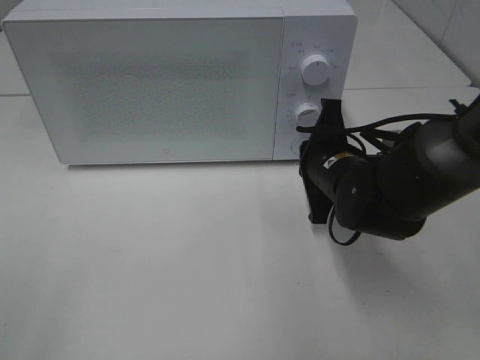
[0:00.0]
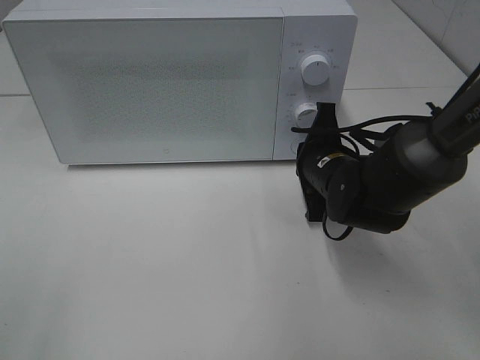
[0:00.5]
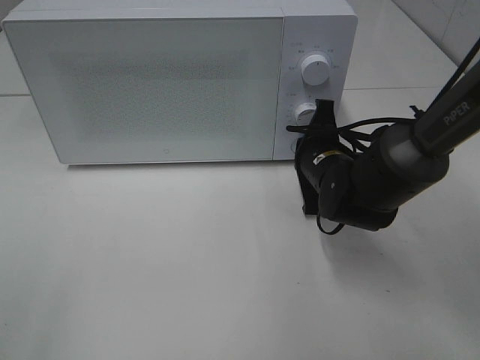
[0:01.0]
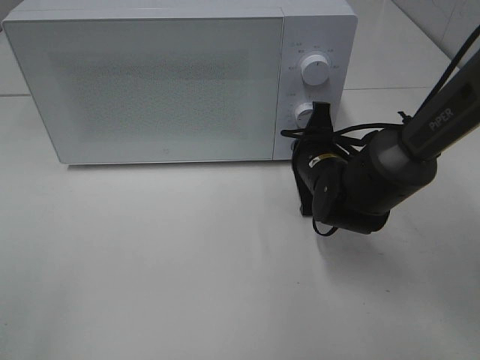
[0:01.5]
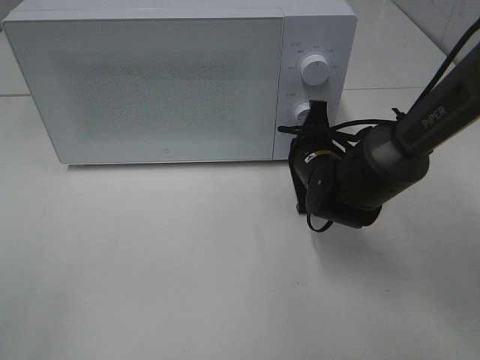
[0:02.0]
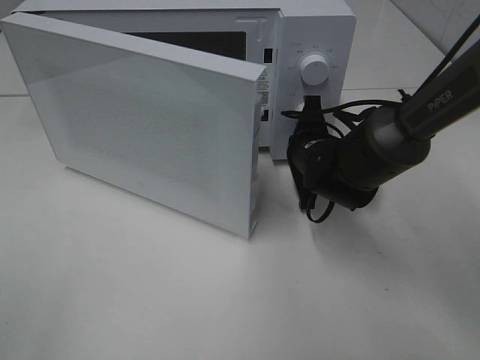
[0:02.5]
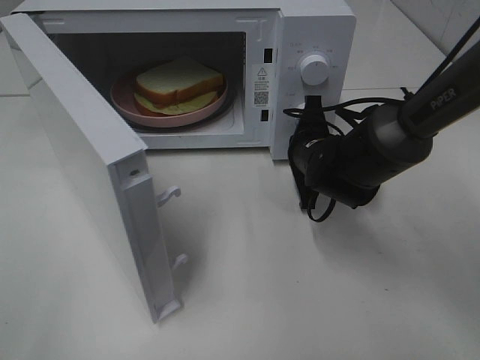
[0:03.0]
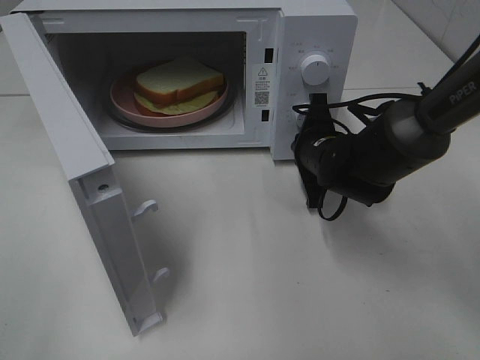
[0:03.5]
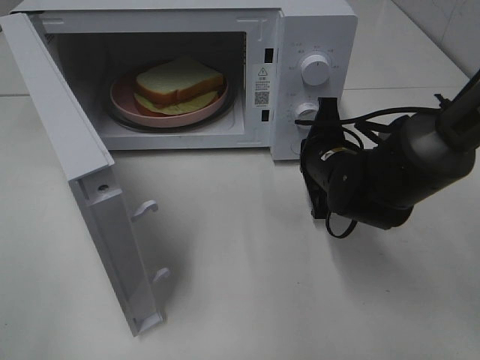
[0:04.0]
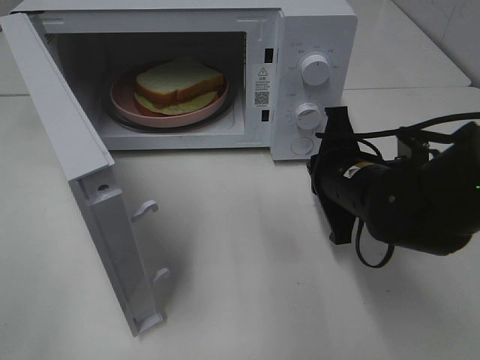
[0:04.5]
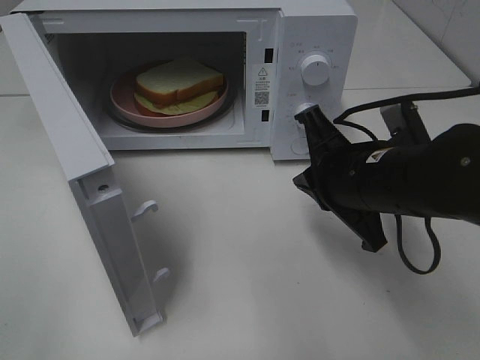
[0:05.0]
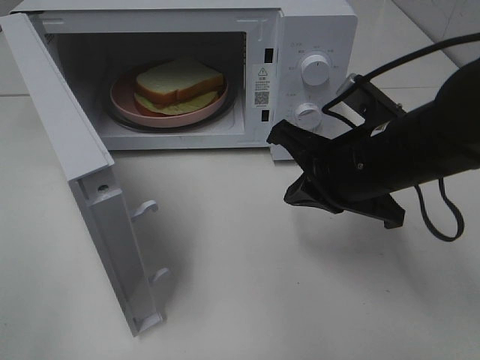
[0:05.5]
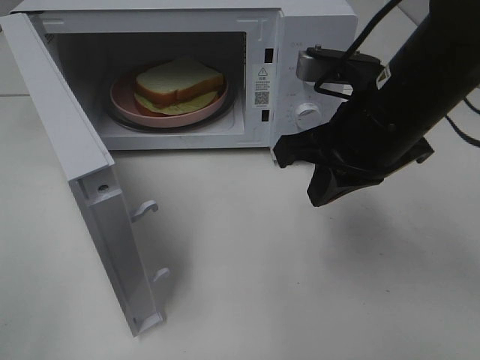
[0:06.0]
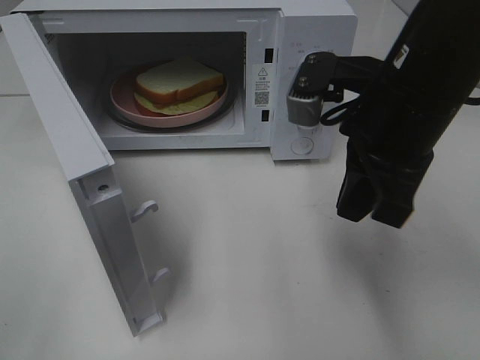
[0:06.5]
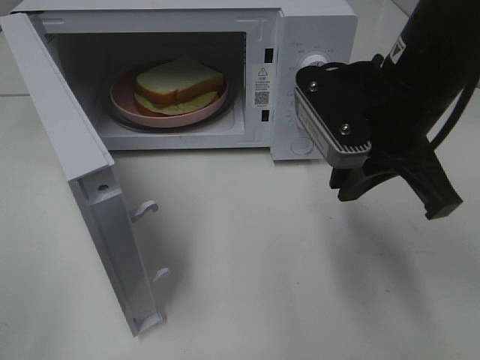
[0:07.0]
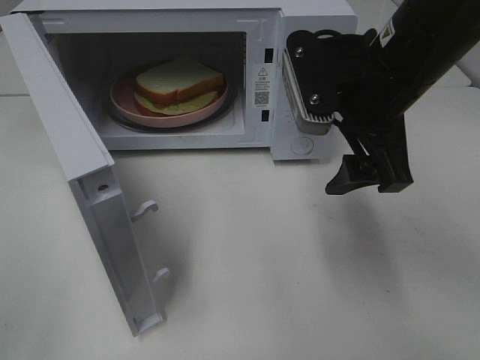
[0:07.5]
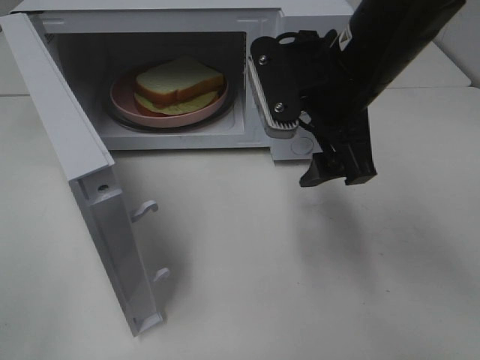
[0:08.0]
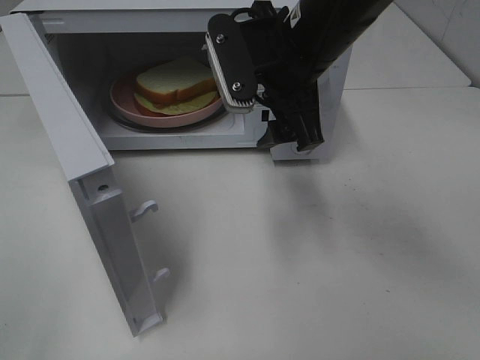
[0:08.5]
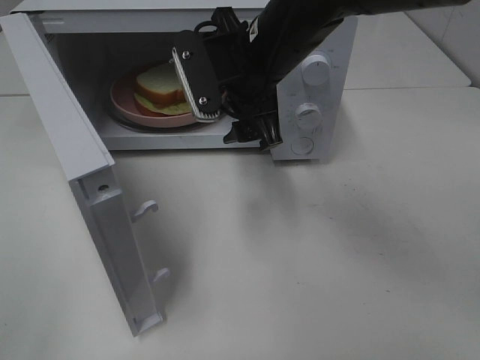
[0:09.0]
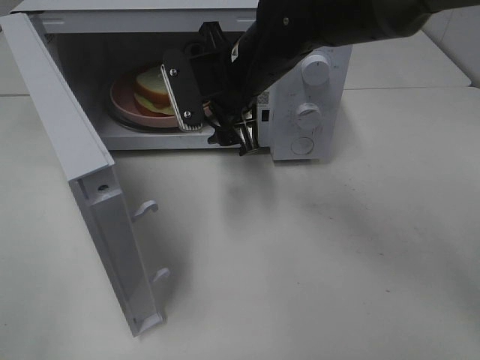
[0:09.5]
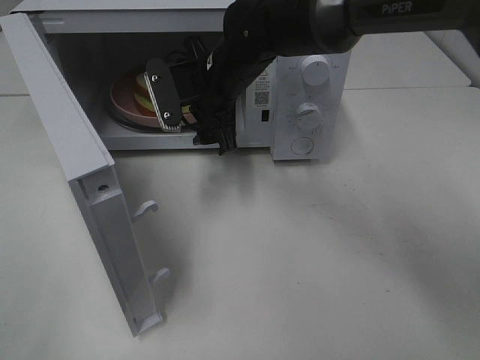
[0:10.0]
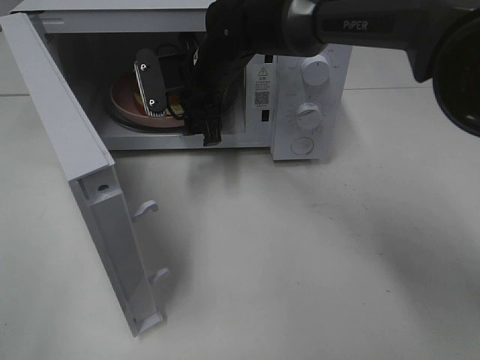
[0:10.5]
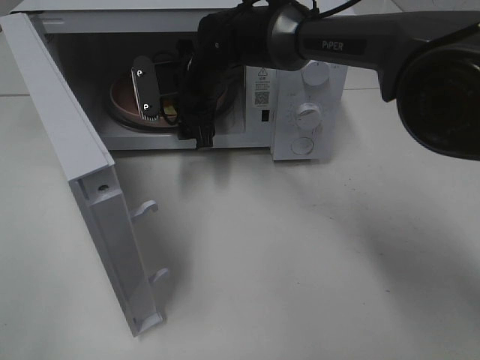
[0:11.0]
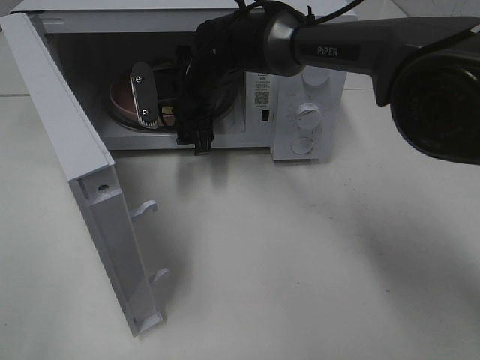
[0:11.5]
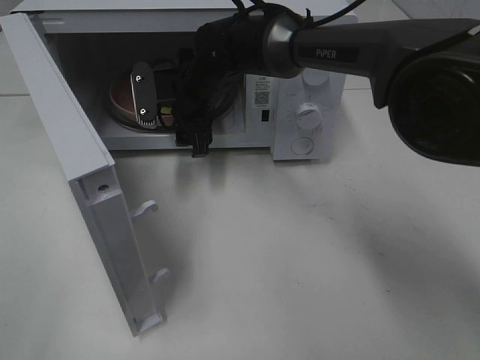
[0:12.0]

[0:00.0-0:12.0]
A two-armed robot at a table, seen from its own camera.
Task of the whole recording: Heat Sandwich.
Step, 0:00.0 to 0:04.0: Right hand: press the switch.
0:00.0 to 0:02.0: The right gripper ends up about 5 cm from where it was.
0:04.0 to 0:06.0: The right gripper is displaced upward and backward by roughly 15 cm.
0:06.0 to 0:08.0: The right gripper opens its fingers.
0:08.0 to 0:10.0: The right gripper heads forward, to the left and downward, covering about 20 cm.
0:10.0 to 0:12.0: The right gripper shifts by approximately 5 cm.

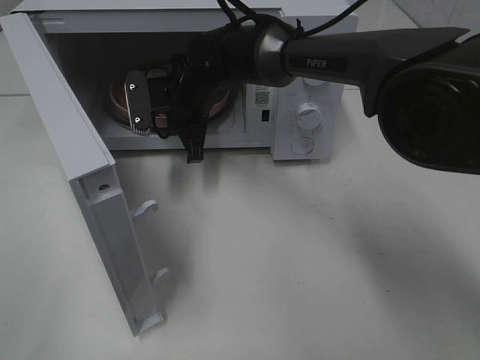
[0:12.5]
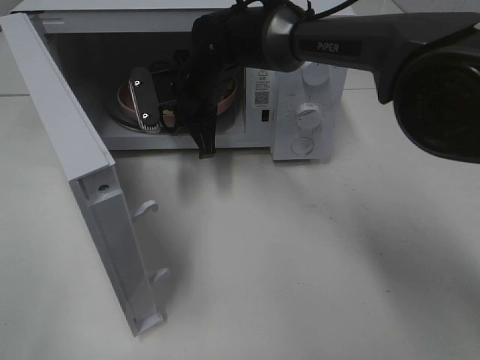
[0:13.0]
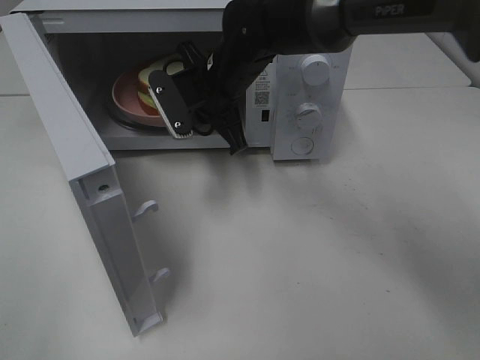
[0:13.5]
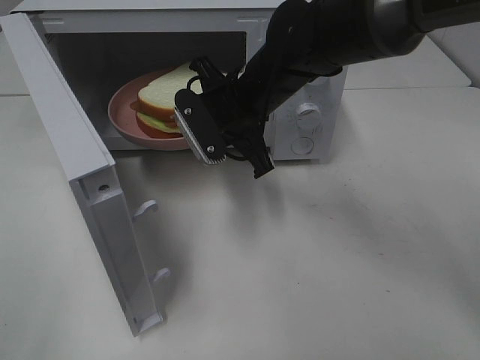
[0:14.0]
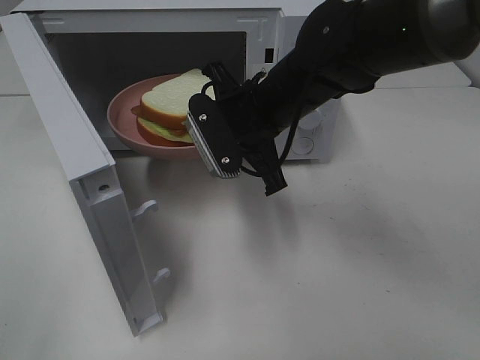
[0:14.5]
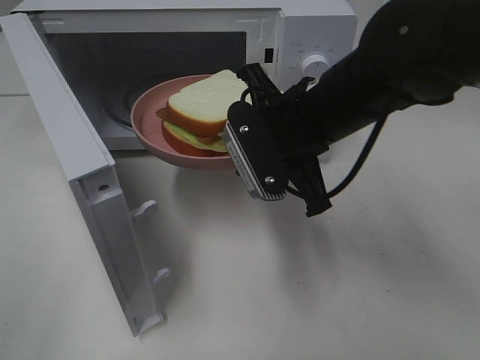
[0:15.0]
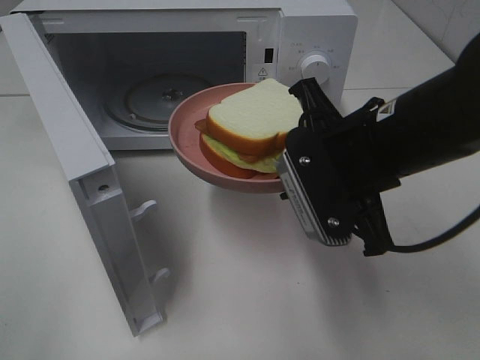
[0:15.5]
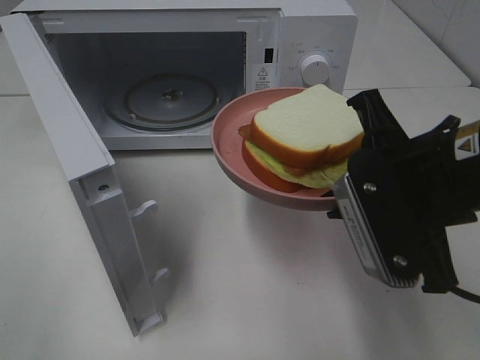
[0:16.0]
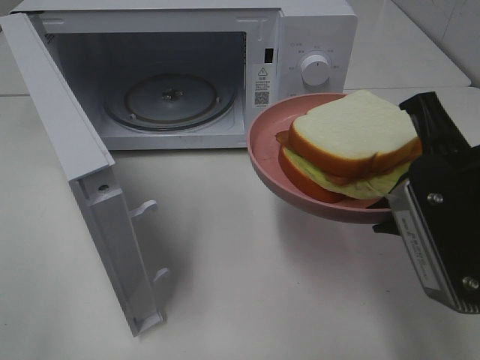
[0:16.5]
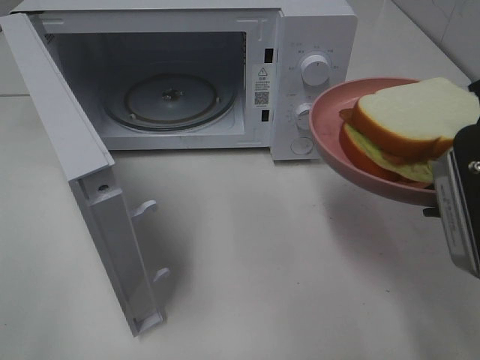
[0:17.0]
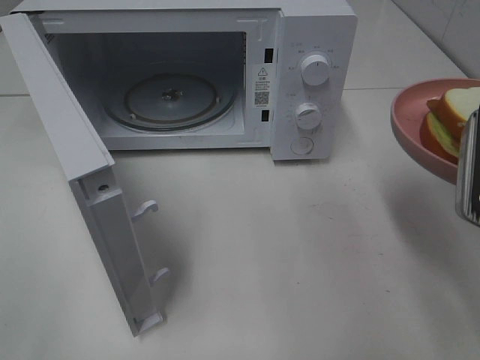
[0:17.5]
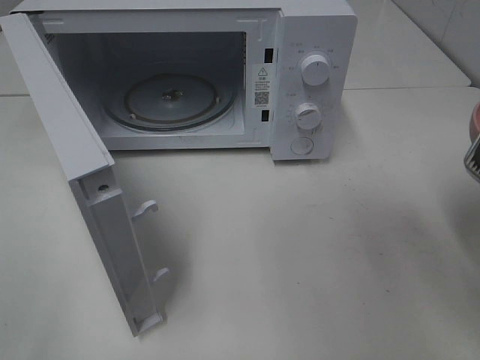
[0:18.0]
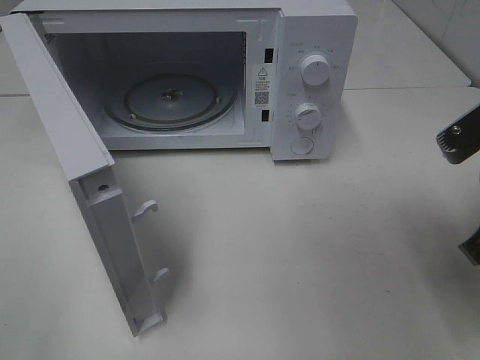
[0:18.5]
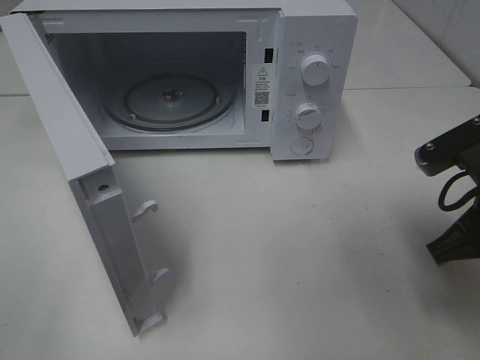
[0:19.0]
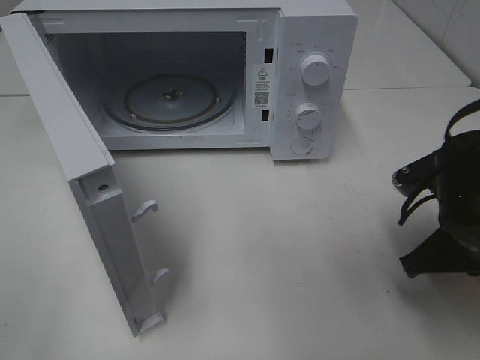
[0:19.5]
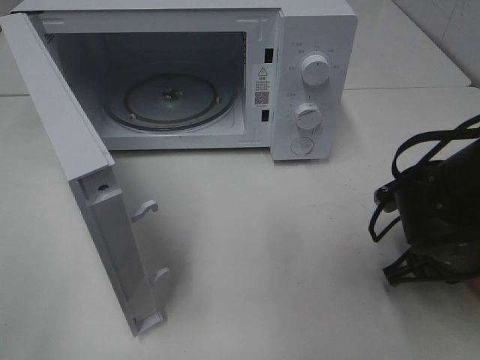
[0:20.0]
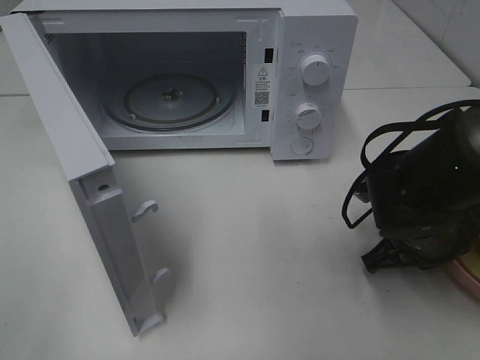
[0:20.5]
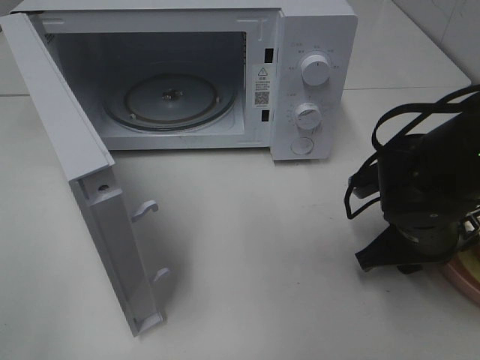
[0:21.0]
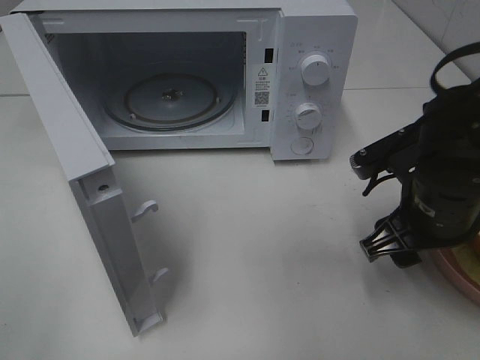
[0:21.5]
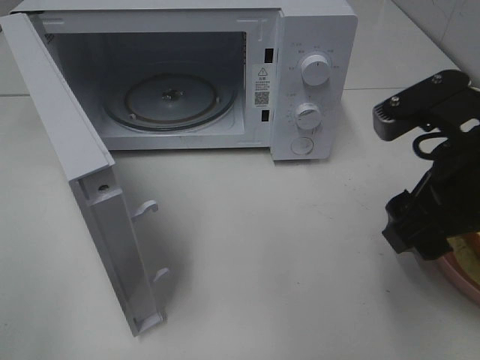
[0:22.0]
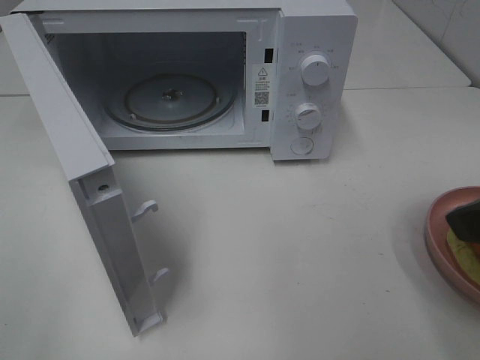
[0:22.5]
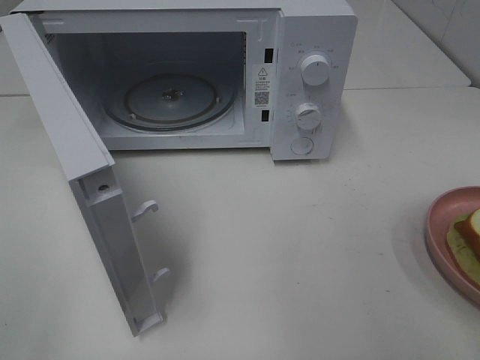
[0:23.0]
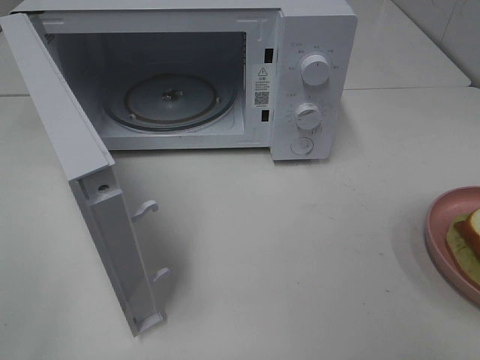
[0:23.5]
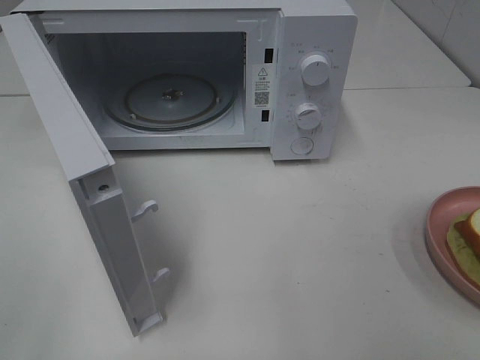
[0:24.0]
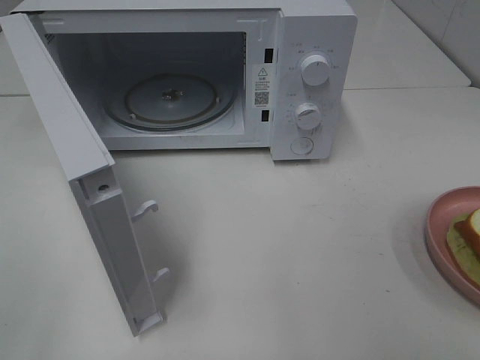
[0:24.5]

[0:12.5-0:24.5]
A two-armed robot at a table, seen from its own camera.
Task of the whole recording: Heat Sandwich.
Step, 0:13.5 to 0:21.5: Right hand: place the plate on the table.
0:12.5 to 0:14.5: The right gripper moves backward, to the right and upward, some 15 cm.
0:14.5 to 0:16.5: The right gripper moves backward and to the right, roughly 20 cm.
0:16.5 to 0:18.5: The right gripper is displaced to the right by about 5 cm.
0:18.5 to 0:20.5: The right gripper is displaced downward and forward by about 15 cm.
0:20.5 to 0:22.5: The right gripper moves upward and backward, about 25 cm, and opens.
0:22.5 to 0:24.5: The right gripper goes some 15 cm backward and to the right.

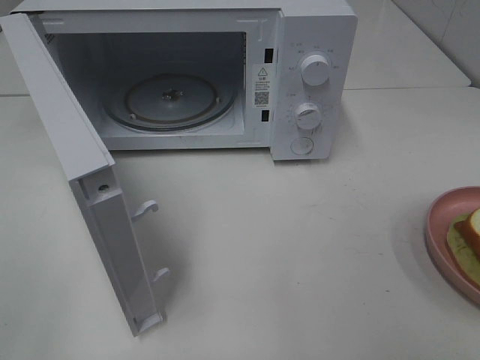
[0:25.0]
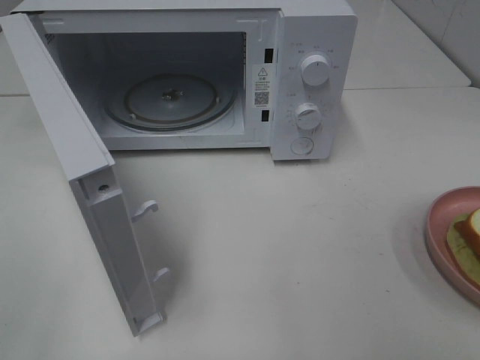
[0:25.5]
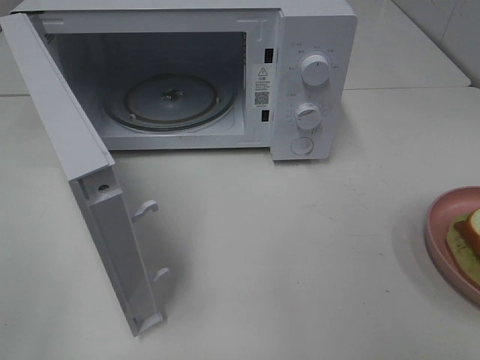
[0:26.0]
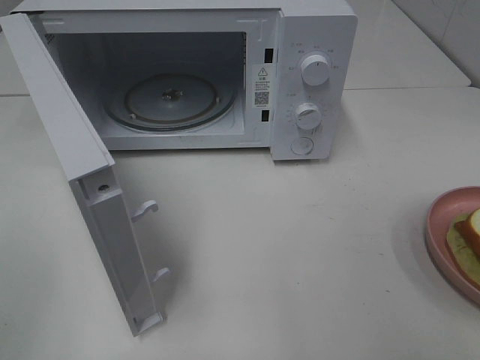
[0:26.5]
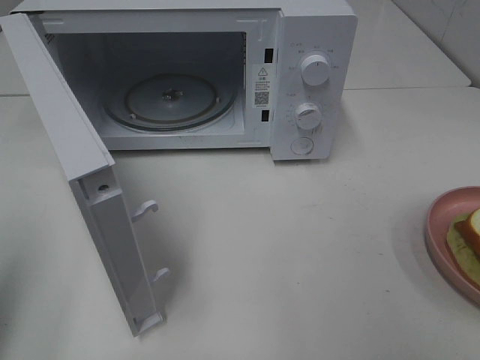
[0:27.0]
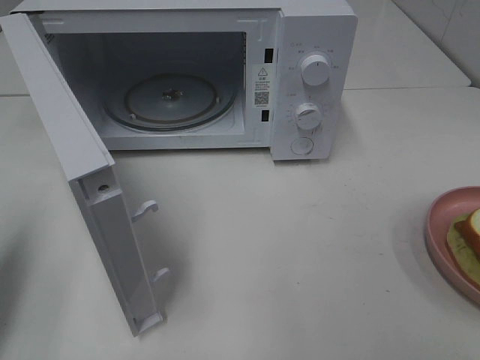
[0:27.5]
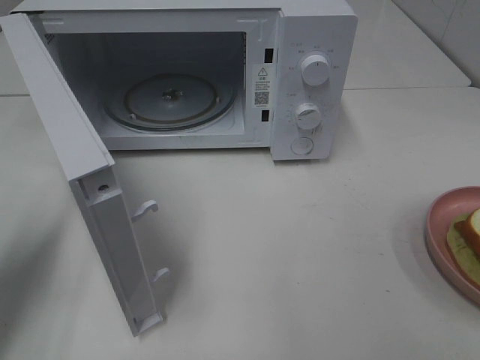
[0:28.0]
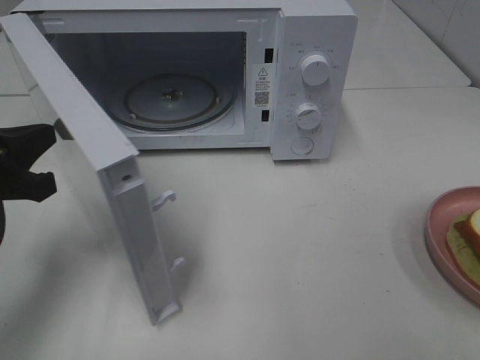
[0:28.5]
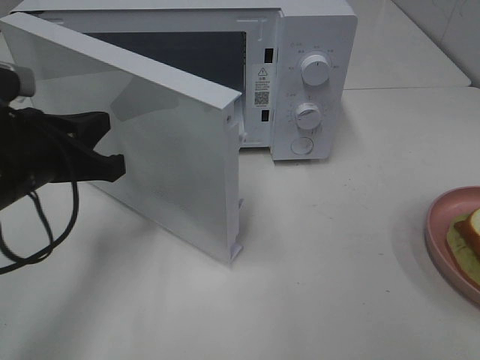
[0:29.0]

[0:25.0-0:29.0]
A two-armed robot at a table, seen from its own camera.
Task of the whole recording: Heat Sandwich.
0:25.0 to 0:27.0: The left gripper goes approximately 10 cm forward, and closes its fingers.
0:27.0 to 0:29.0: The left gripper travels forward, to the right and downward by roughly 20 cm.
